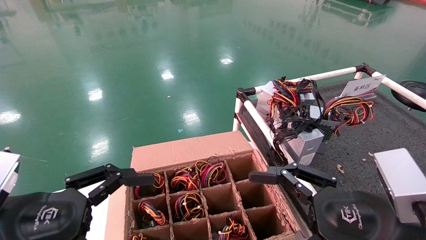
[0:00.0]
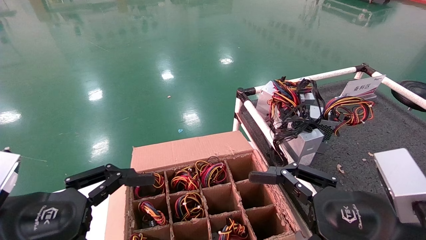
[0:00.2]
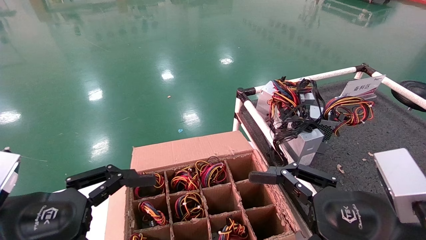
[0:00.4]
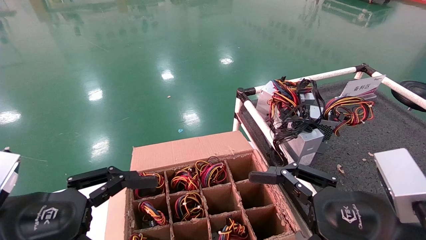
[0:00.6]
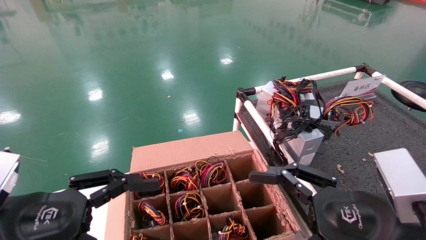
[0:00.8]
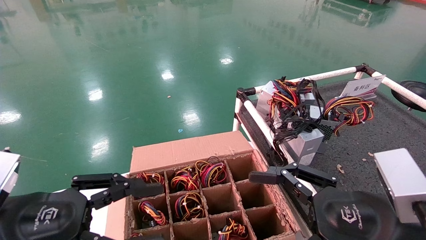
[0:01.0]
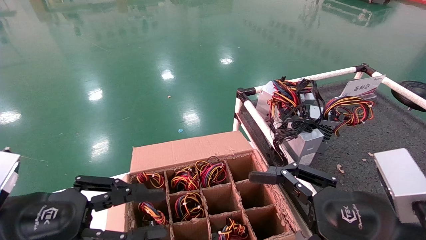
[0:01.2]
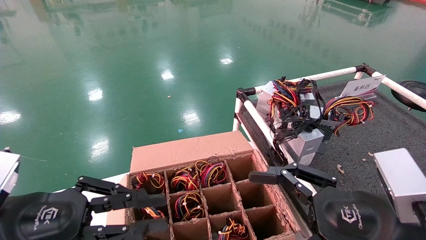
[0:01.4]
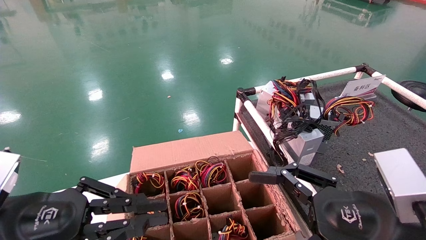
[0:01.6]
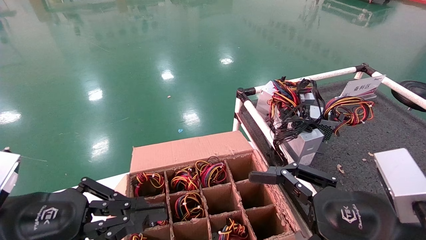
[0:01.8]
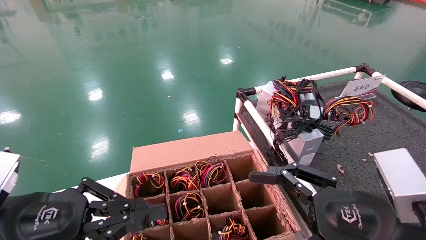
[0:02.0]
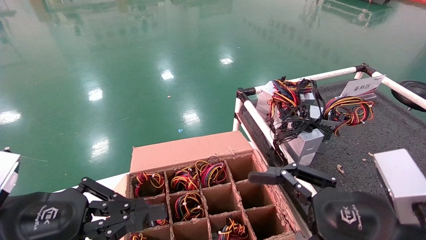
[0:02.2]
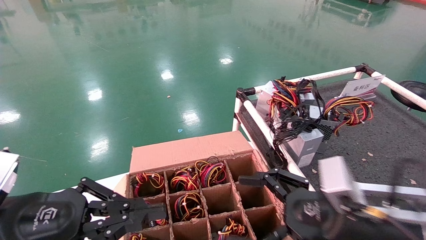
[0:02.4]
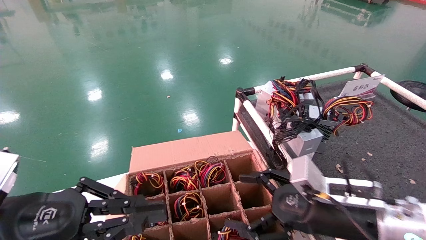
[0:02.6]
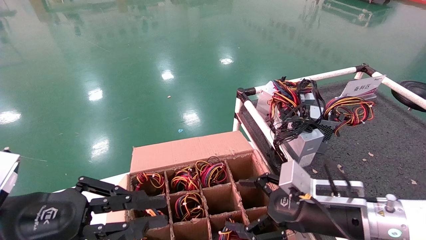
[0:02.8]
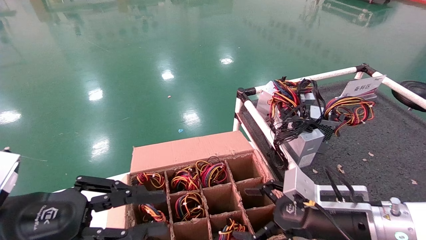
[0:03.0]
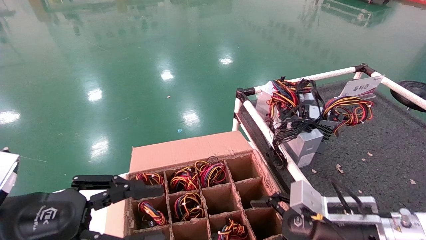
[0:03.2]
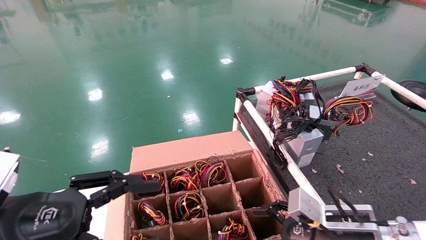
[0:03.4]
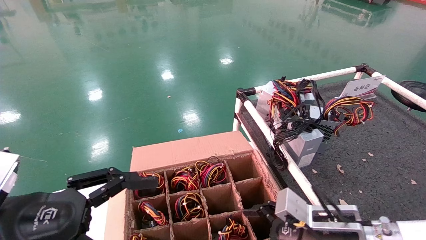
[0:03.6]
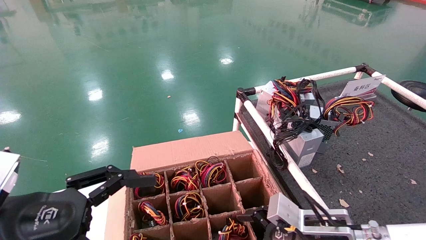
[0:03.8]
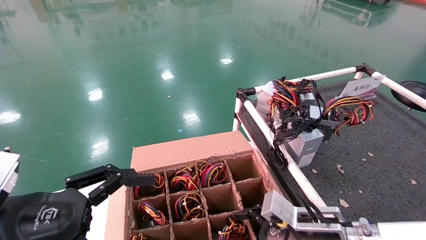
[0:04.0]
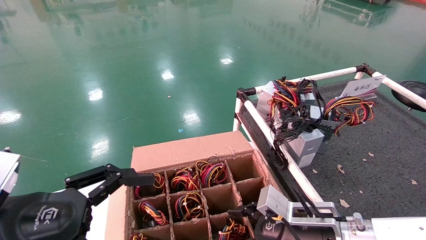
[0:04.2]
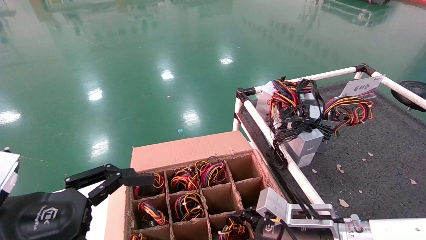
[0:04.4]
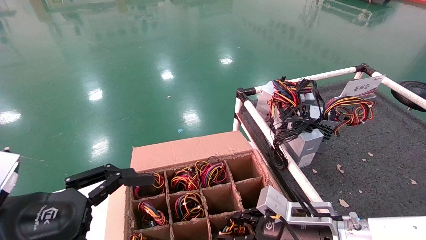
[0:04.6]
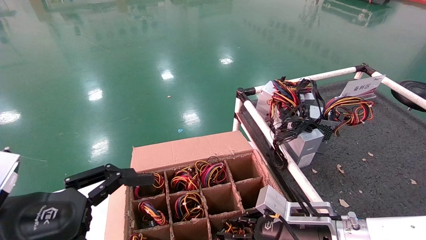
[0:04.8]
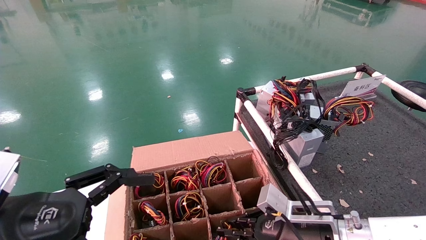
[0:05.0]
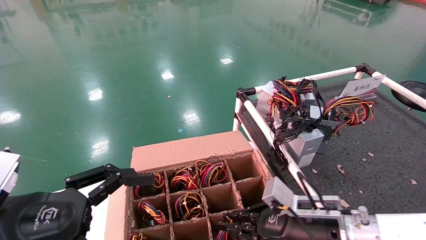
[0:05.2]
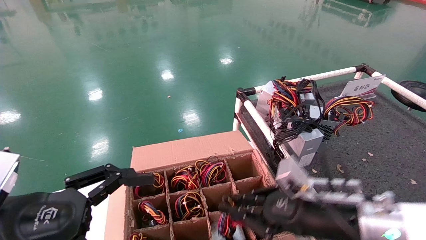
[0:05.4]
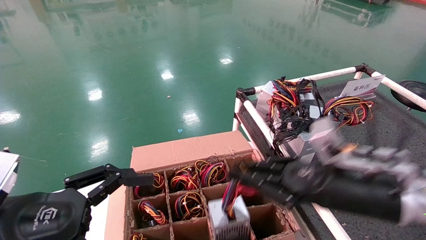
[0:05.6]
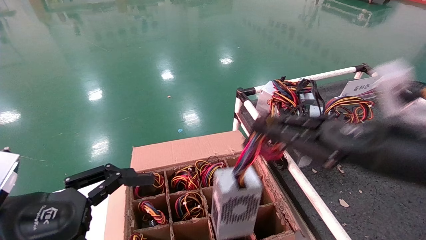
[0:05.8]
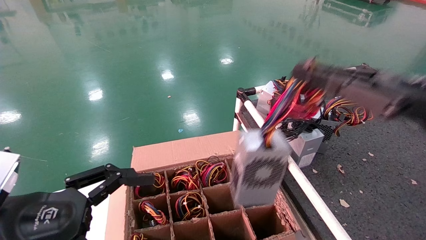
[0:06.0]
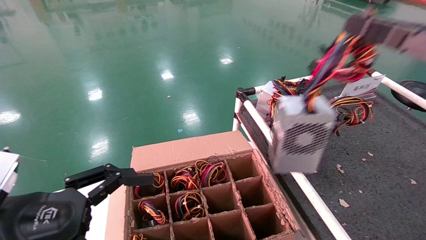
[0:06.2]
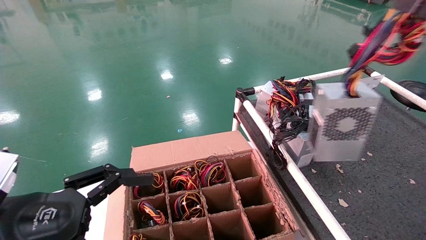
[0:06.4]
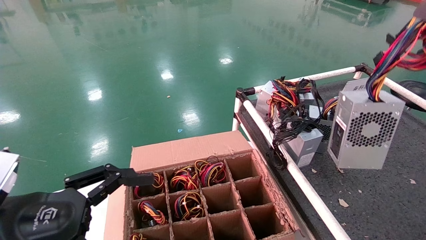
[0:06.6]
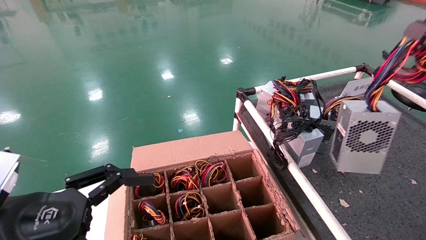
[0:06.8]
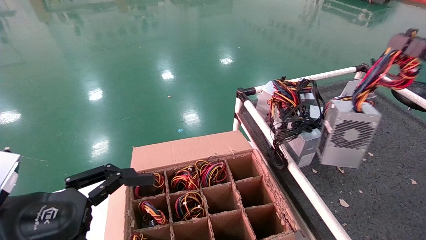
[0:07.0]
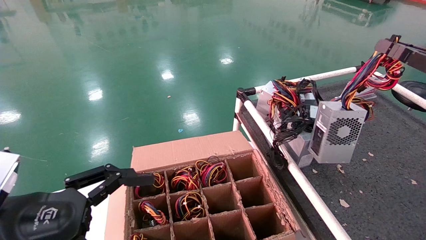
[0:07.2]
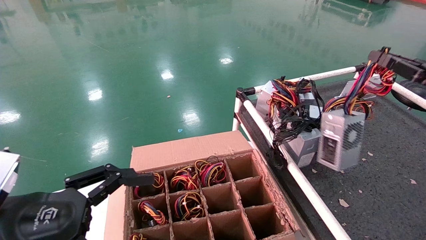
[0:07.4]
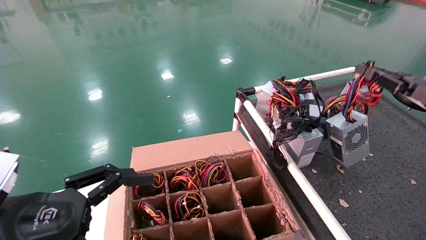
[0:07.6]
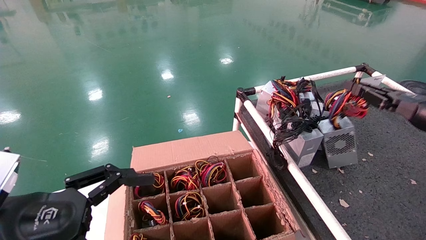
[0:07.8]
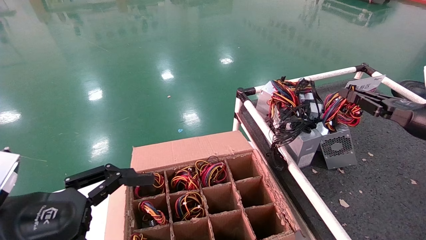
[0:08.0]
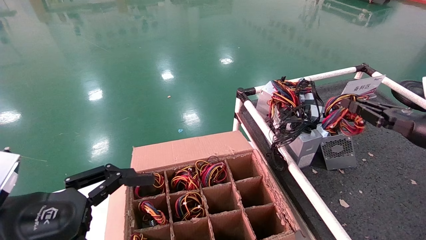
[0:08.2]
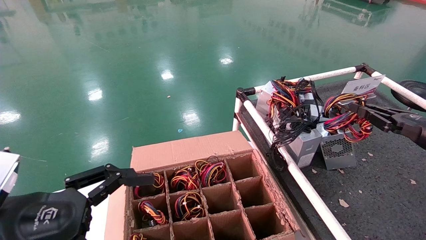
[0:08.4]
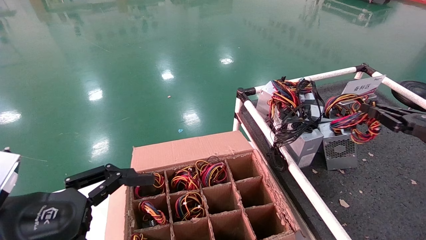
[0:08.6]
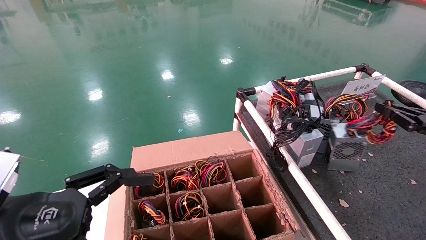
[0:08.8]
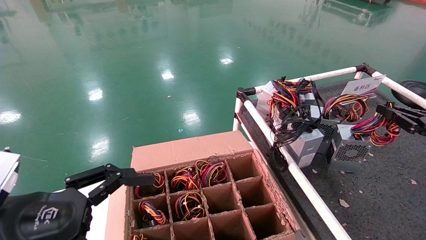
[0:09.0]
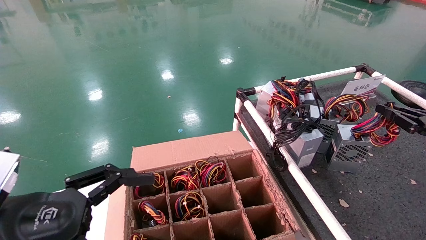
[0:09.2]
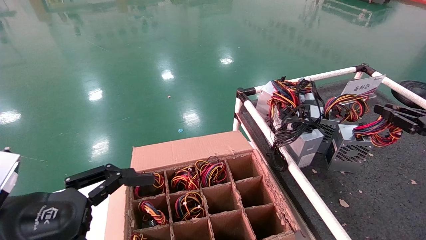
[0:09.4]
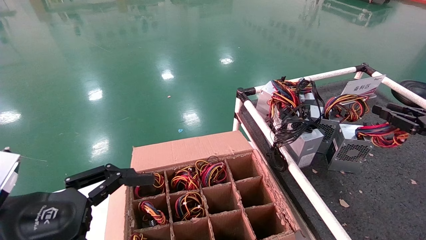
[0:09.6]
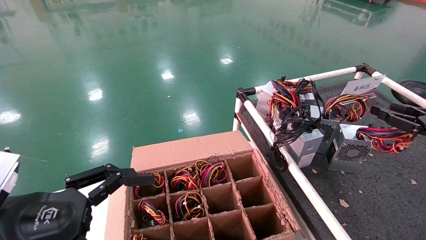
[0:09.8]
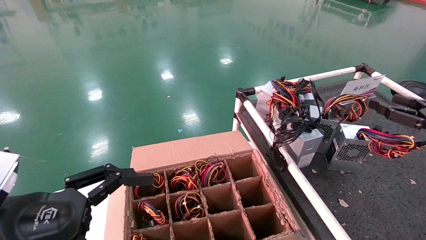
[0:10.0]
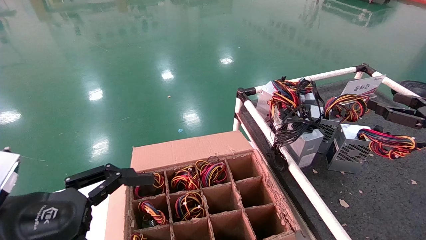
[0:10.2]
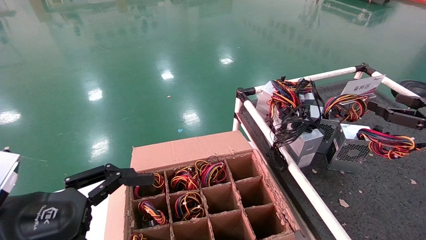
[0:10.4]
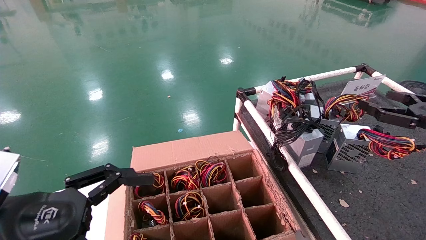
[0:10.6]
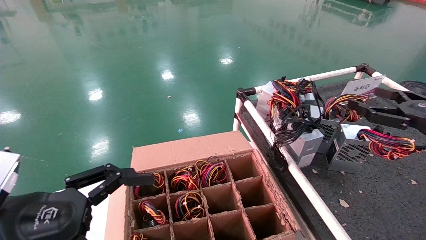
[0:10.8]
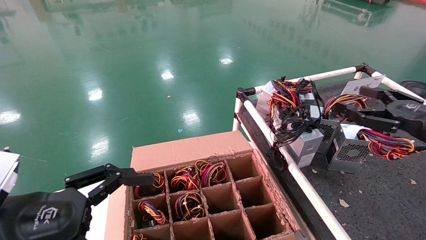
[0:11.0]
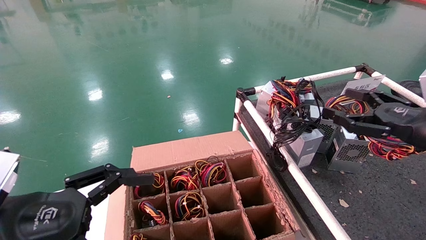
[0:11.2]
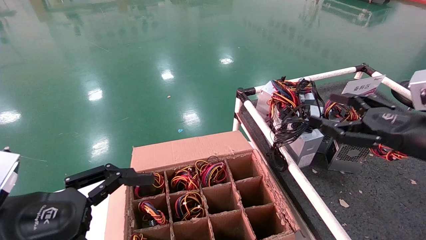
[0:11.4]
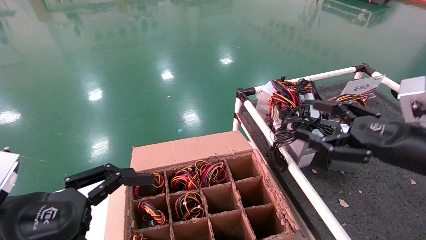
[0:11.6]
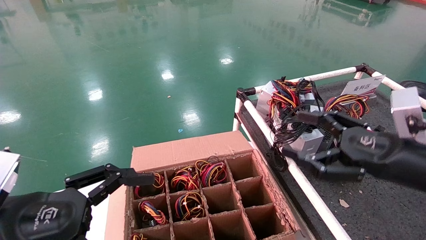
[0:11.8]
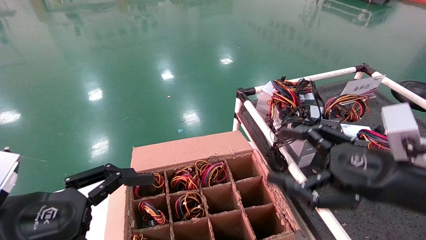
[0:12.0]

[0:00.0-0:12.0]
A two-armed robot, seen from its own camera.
Step, 0:02.8 to 0:05.4: Grab and lift the power supply from the large box.
Step, 0:05.6 to 0:09.8: Place the power supply on the operating table.
0:00.0 to 0:01.6: The left gripper closes up.
0:01.6 to 0:03.0: The right gripper shifts some 15 cm forward and downward.
0:03.0 to 0:04.4: The right gripper changes place by about 5 cm, and closes its fingers. The left gripper opens up.
0:04.4 to 0:06.0: The right gripper goes approximately 30 cm upward, to the right and backward, and closes up.
0:06.0 to 0:07.6: The right gripper heads to the right and forward, covering some 15 cm.
0:07.6 to 0:09.0: The right gripper shifts roughly 10 cm downward and to the right.
0:09.0 to 0:10.4: The right gripper opens its fingers.
0:10.4 to 0:12.0: The right gripper moves to the left and backward, roughly 20 cm.

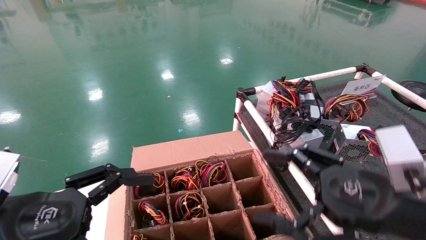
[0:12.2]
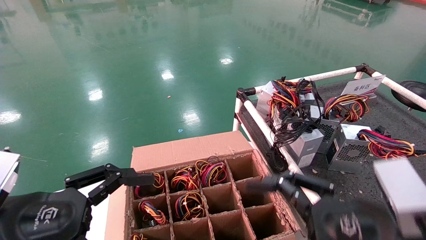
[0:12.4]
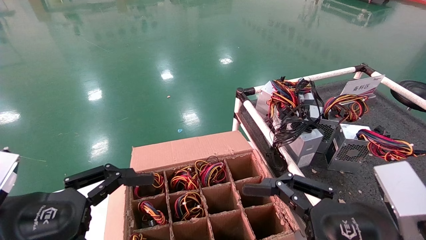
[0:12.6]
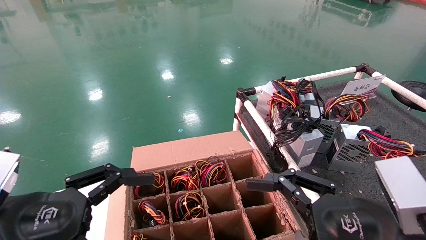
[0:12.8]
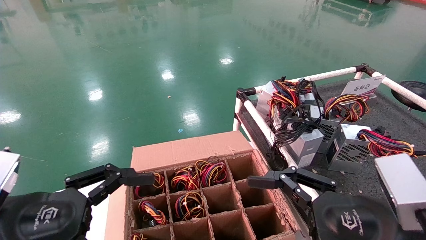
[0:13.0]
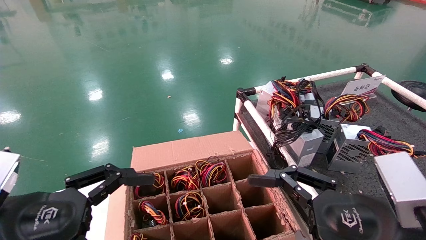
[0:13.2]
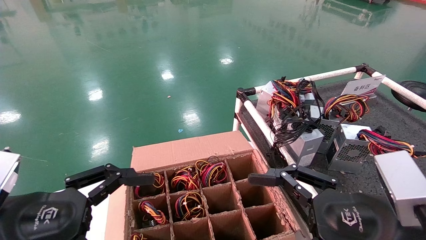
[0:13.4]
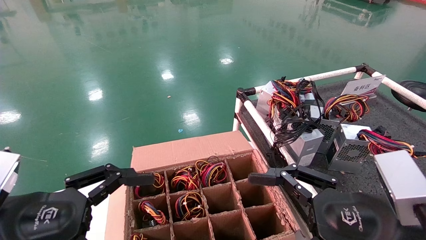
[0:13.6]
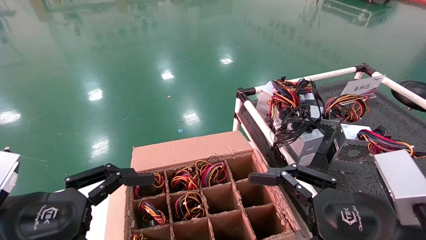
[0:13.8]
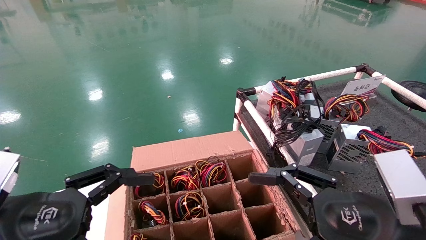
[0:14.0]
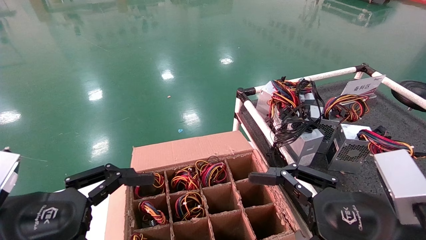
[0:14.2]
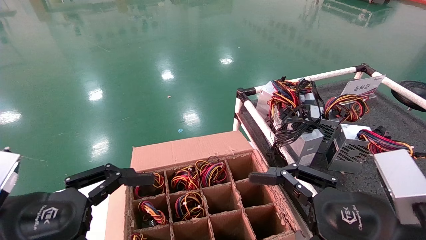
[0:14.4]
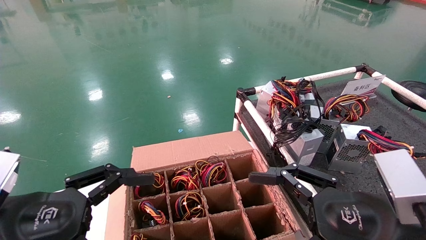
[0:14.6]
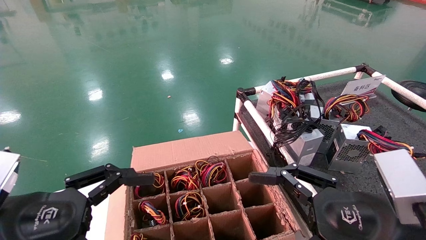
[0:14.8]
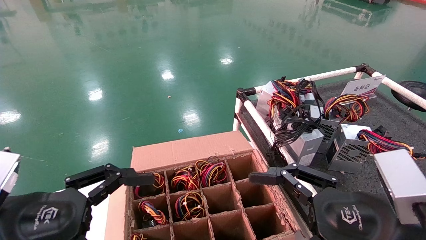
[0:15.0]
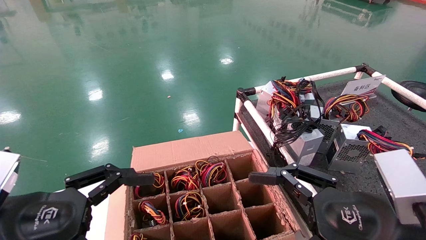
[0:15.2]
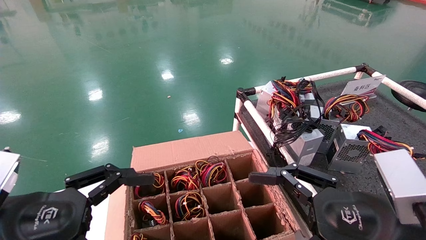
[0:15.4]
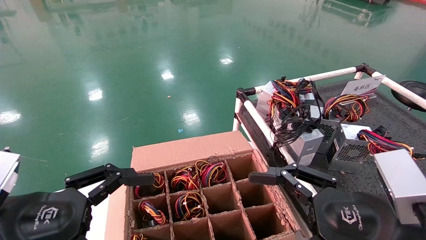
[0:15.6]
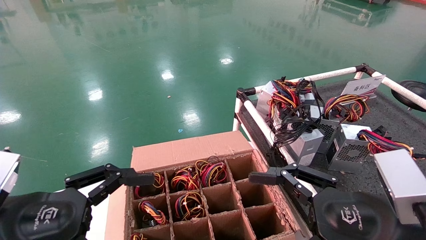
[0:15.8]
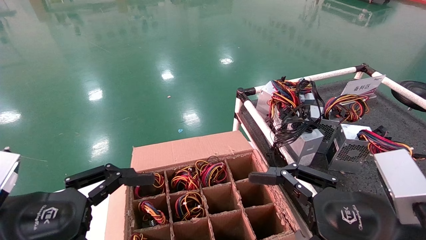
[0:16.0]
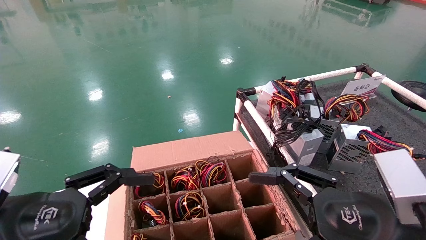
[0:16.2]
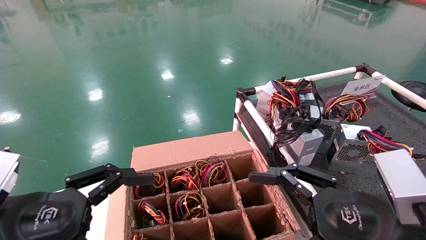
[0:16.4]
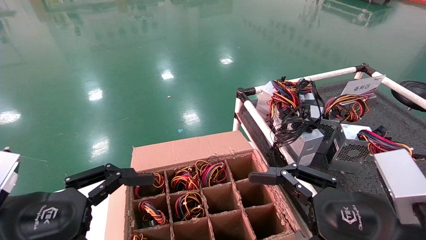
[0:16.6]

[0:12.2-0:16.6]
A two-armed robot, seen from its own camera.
0:12.2 to 0:13.6: The grippers stay close to where they were, moving slightly.
0:13.6 to 0:16.6: Both grippers stay about where they are.
